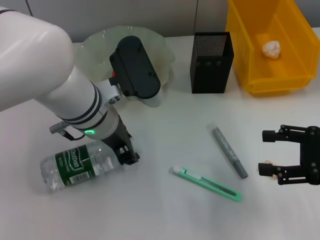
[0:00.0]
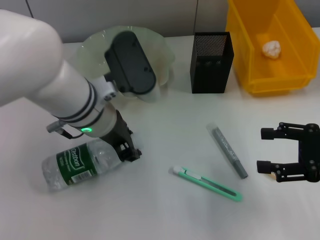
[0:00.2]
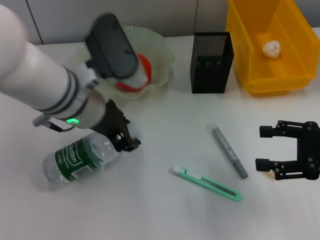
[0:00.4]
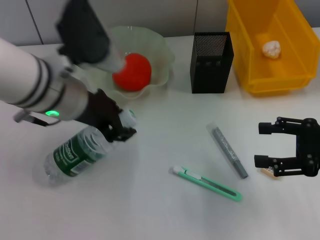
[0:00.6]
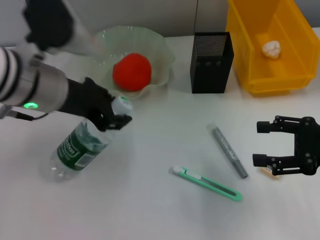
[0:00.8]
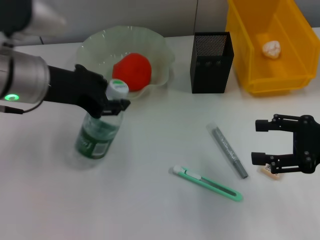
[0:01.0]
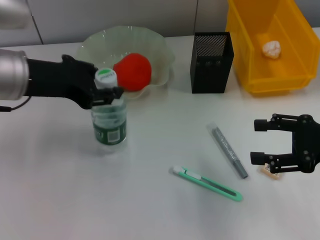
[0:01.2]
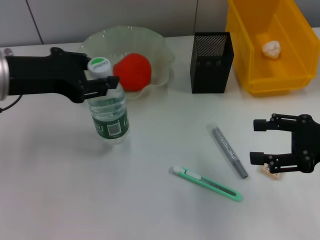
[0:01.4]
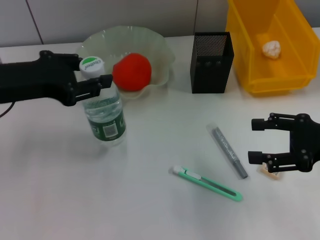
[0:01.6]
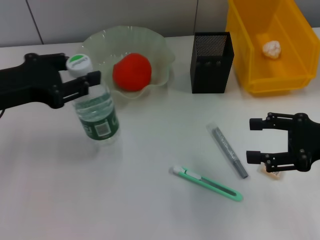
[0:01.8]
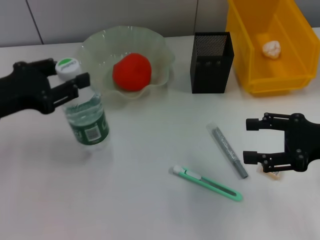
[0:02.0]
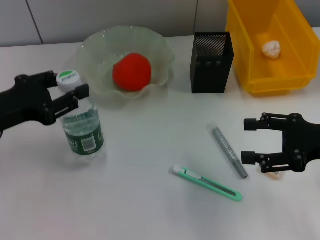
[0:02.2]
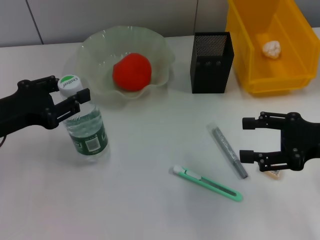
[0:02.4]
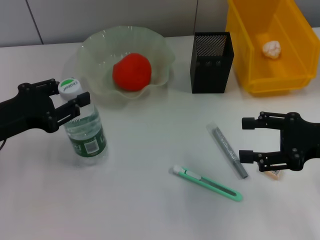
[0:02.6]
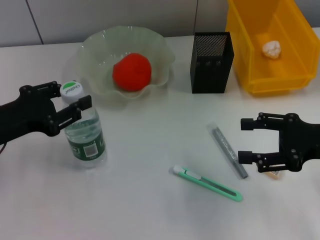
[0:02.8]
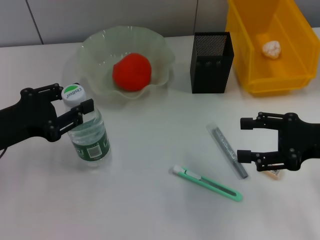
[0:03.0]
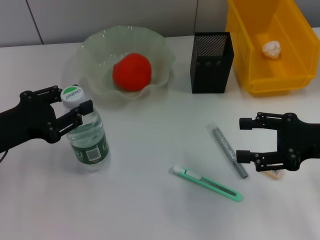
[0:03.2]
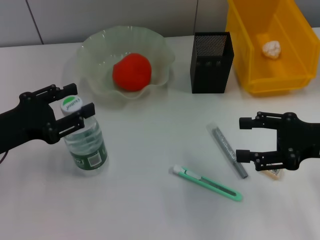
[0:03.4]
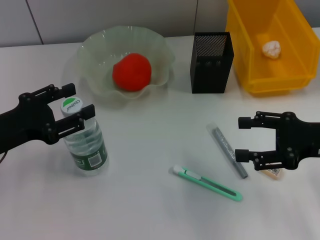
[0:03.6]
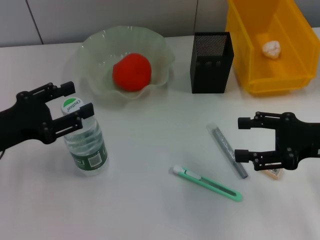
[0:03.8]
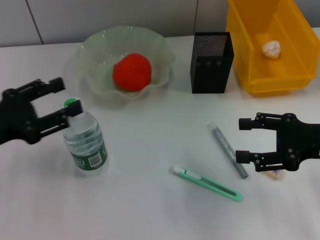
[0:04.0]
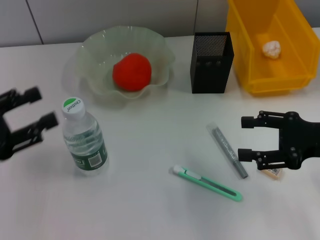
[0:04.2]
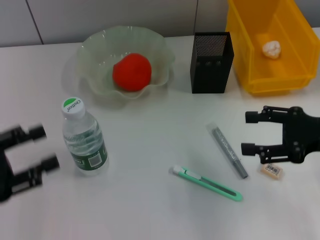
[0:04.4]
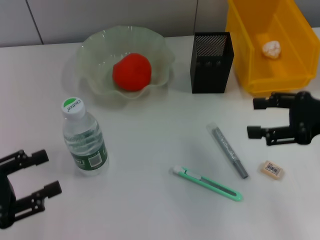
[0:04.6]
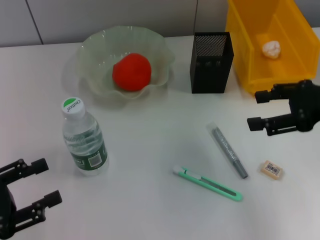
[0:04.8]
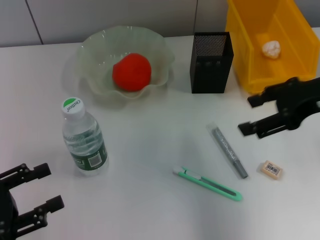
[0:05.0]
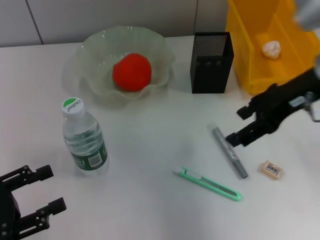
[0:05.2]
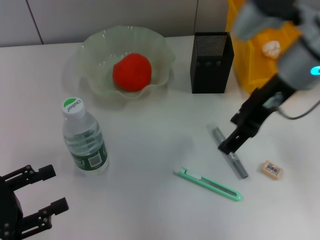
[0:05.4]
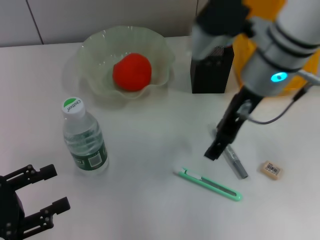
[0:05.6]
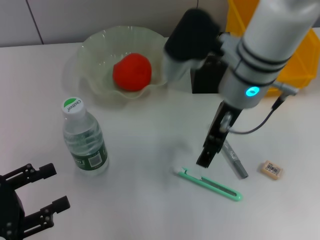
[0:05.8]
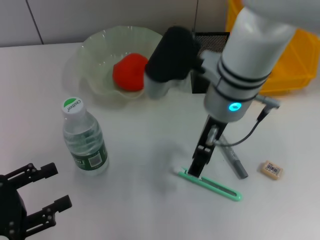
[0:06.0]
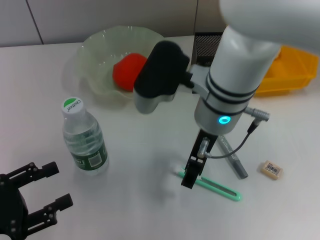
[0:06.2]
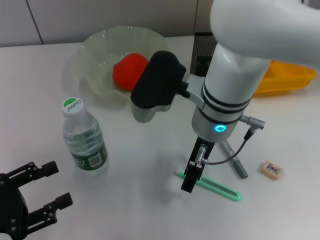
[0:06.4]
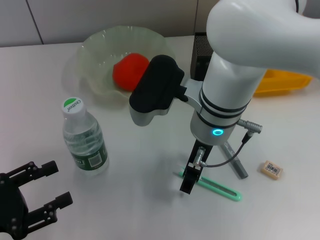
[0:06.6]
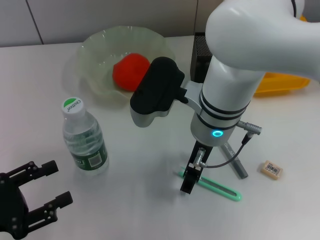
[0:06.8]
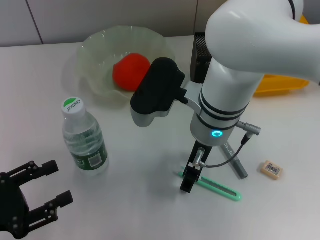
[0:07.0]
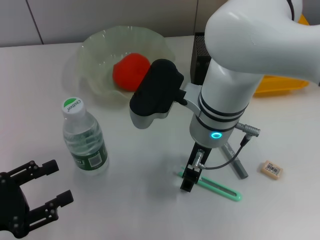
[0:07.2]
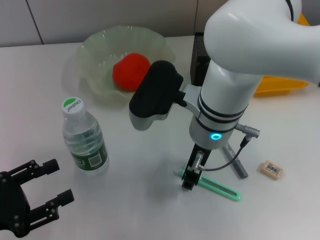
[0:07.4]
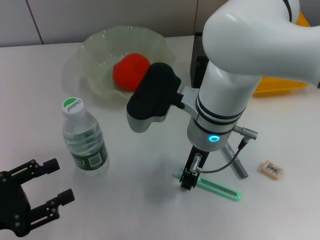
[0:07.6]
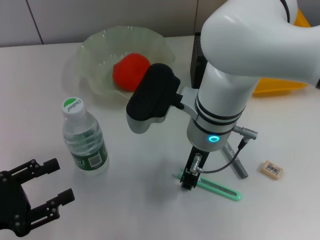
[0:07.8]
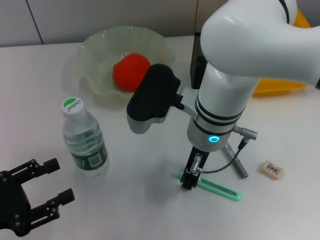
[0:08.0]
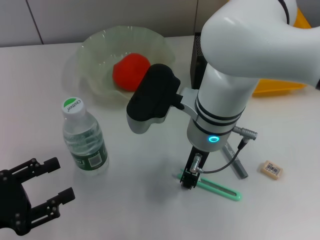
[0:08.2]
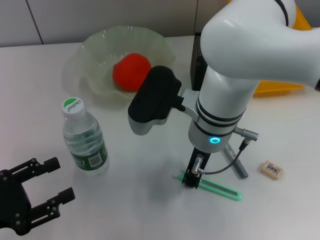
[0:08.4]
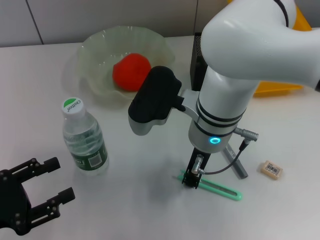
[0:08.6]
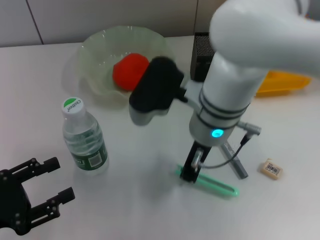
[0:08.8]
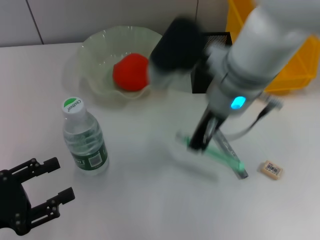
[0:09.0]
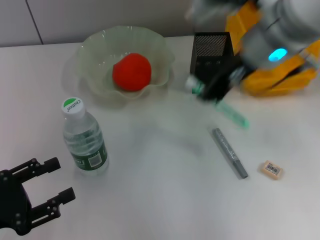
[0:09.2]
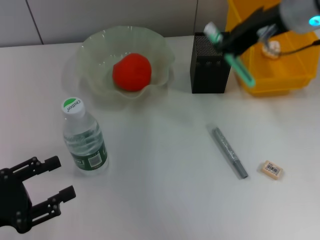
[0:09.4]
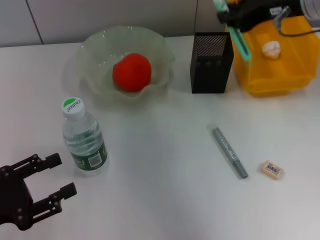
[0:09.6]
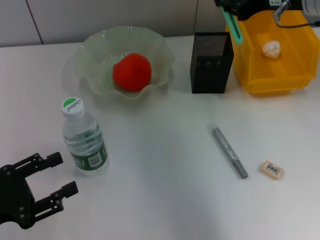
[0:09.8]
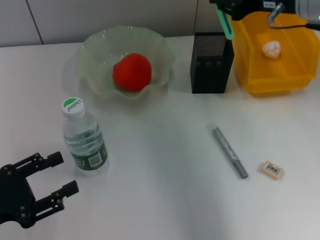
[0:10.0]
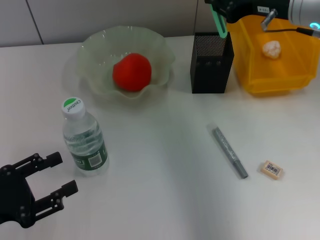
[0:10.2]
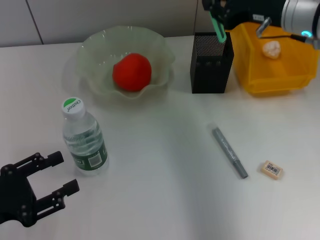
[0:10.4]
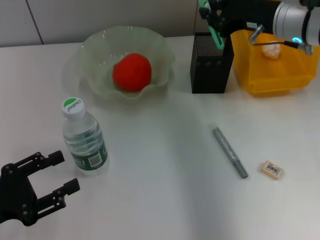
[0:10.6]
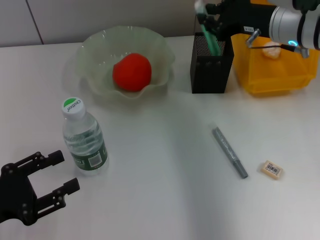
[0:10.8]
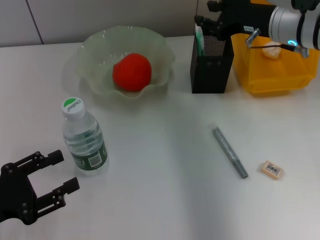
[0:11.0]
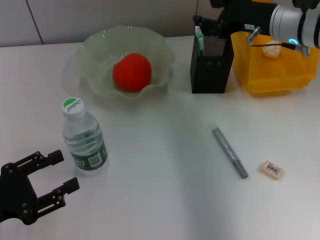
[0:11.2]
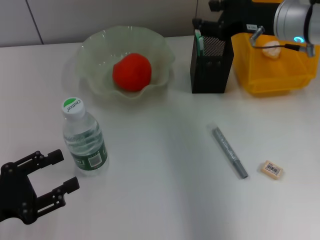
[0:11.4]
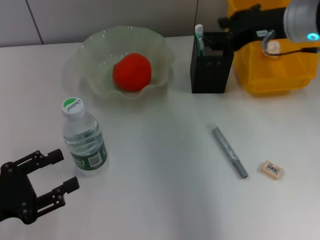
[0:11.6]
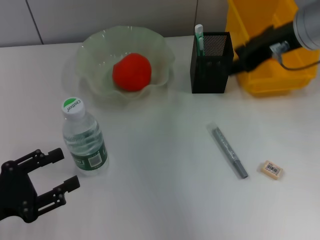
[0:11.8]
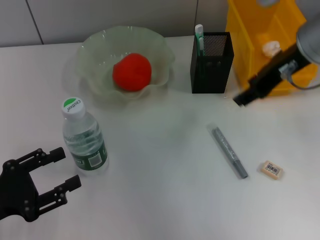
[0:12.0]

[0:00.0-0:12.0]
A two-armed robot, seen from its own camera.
Step, 0:00.0 to 0:03.4: Place the water bottle on the table with the left hand.
Step, 0:03.6 to 0:08.4: Grab the blue utility knife with the right hand.
Step, 0:08.6 to 0:11.0: Place the blue utility knife into the pen holder with the right hand.
0:00.0 to 0:01.6: The left gripper is displaced to the left and upward by some 15 cm.
0:01.6 to 0:03.0: The left gripper heads downward, covering roughly 10 cm.
0:03.0 to 0:04.4: The left gripper is displaced backward and to the left by approximately 10 cm, and opens its fingers.
0:04.4 to 0:06.0: The left gripper shifts by about 5 cm. Meanwhile the right gripper moves to the left, about 25 cm.
0:06.0 to 0:07.6: The right gripper closes up.
0:07.6 to 0:09.0: The right gripper is displaced upward by approximately 5 cm, and closes up.
0:09.0 to 0:10.4: The right gripper heads to the right and forward, covering some 15 cm.
0:10.4 to 0:12.0: The right gripper changes place by roughly 5 cm, and opens.

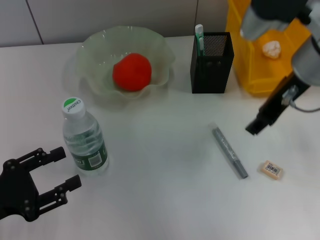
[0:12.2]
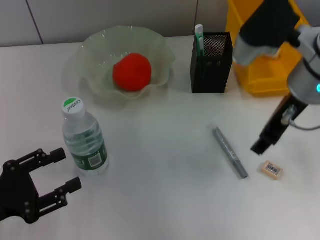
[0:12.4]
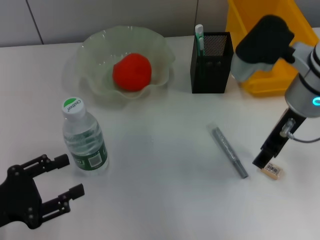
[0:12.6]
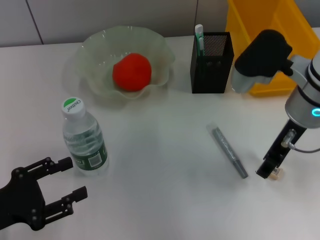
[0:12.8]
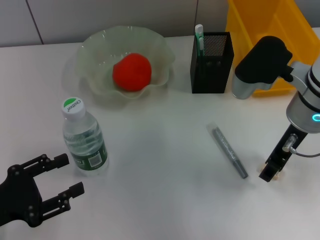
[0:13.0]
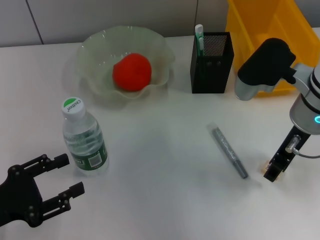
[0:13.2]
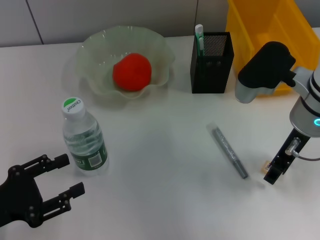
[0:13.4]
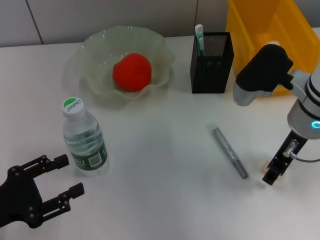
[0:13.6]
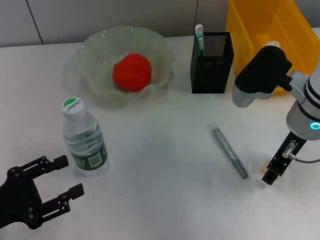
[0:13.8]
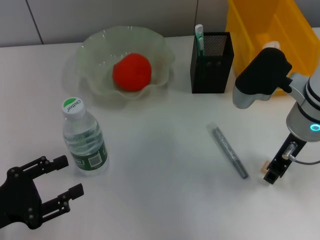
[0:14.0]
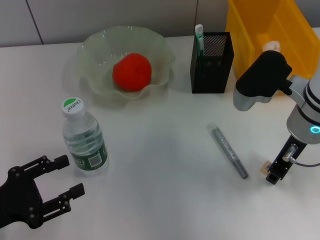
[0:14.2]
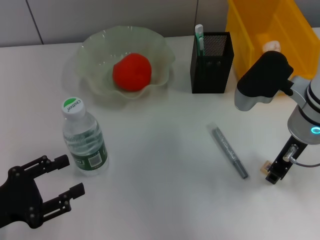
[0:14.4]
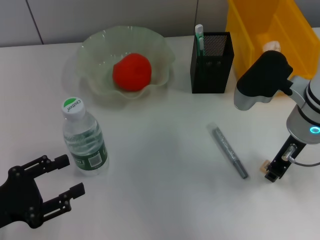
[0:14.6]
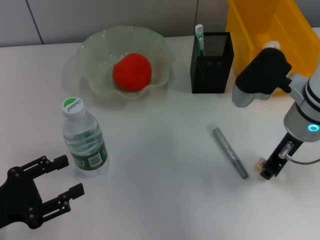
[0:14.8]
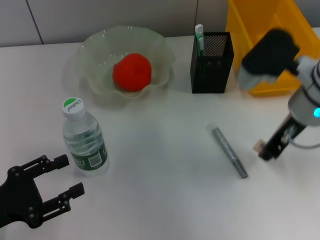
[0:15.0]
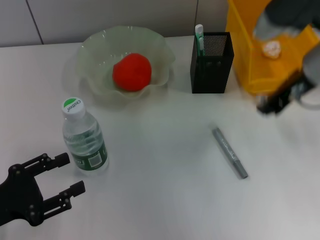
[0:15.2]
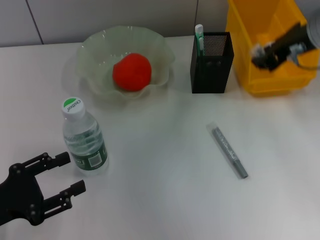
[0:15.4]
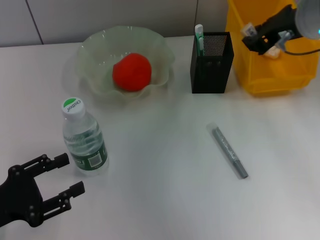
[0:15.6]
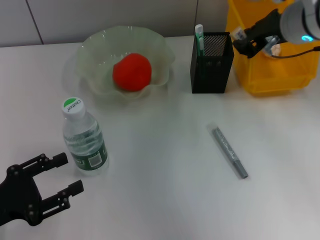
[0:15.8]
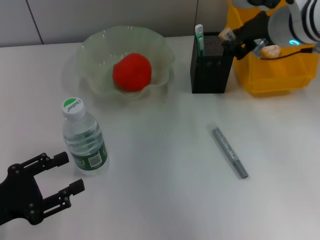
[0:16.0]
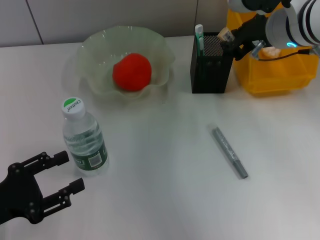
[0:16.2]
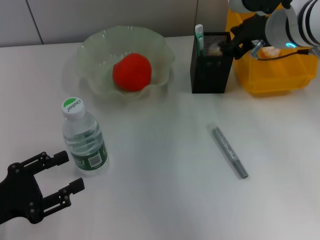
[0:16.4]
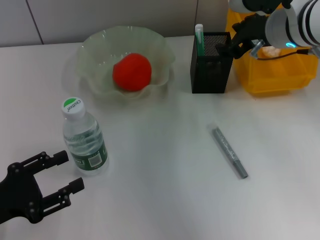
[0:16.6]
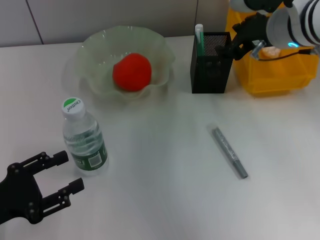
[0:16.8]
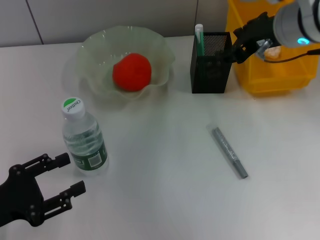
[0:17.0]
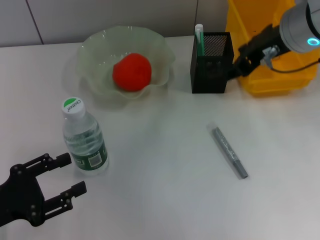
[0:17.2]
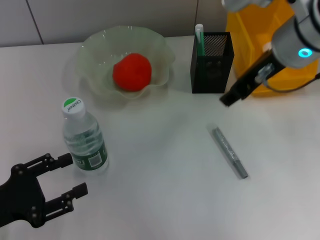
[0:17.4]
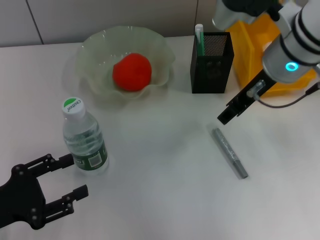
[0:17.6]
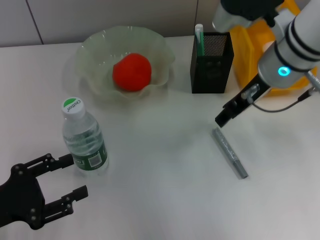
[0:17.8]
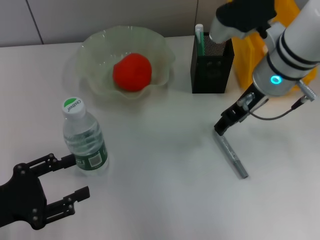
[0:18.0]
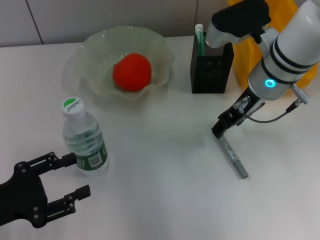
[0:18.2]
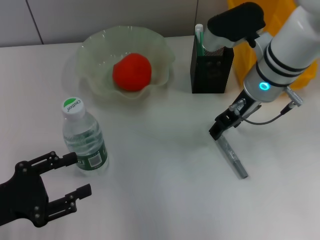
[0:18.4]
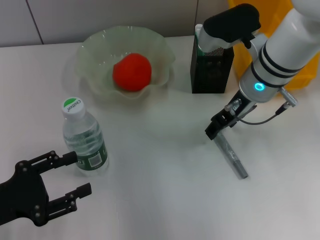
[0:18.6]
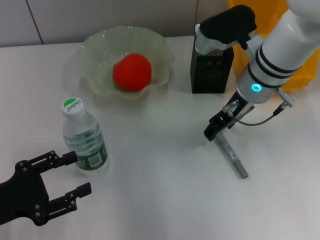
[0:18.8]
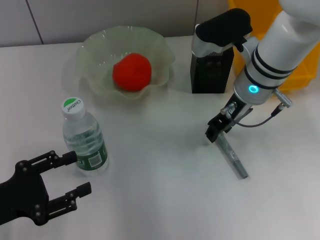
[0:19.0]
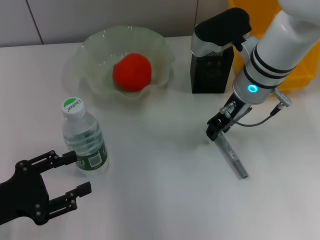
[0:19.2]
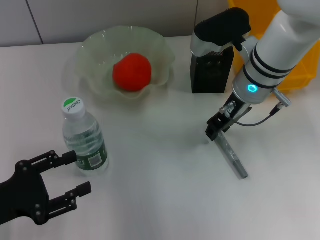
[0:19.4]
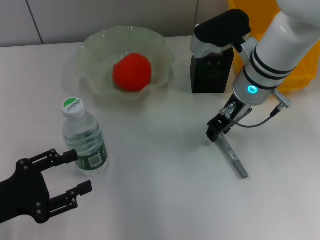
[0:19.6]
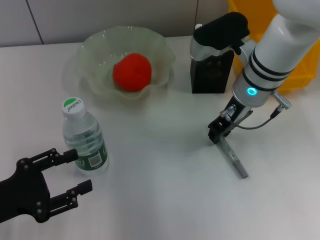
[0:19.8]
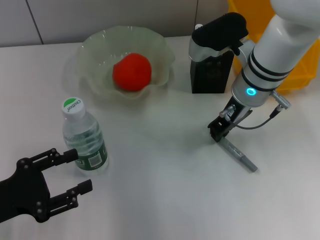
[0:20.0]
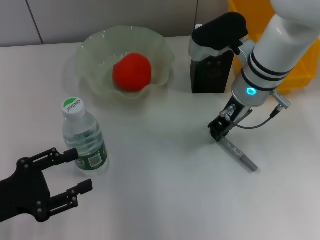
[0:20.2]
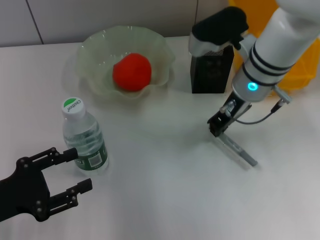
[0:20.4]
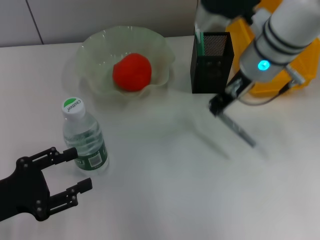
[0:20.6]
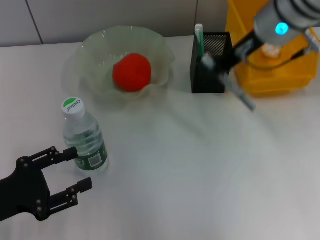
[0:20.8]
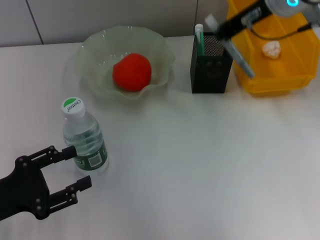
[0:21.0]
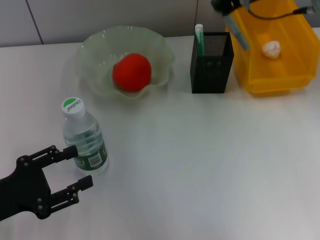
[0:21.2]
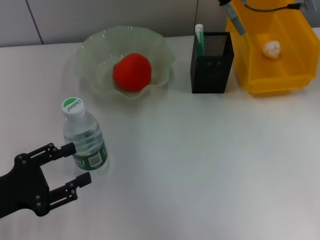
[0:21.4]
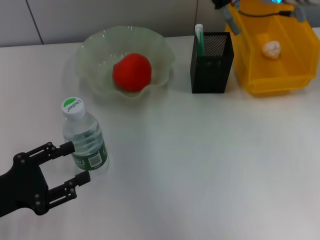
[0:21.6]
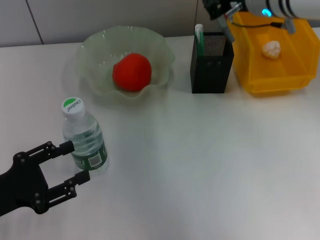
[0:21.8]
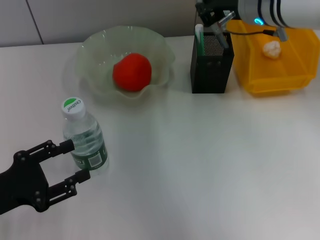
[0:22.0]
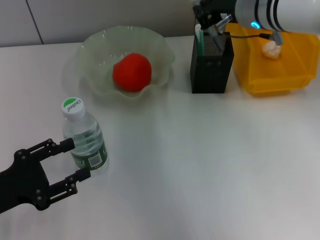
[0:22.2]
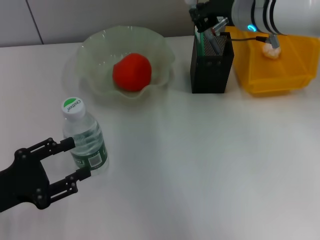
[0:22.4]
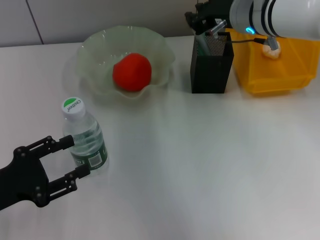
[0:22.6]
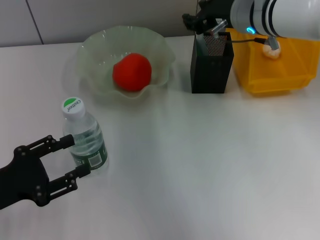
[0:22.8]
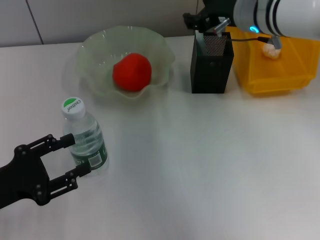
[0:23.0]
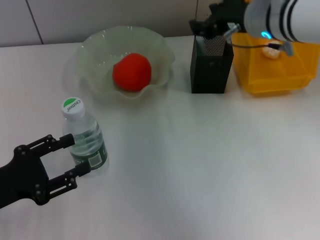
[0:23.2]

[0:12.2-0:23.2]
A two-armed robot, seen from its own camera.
Step, 0:12.2 to 0:14.4: Grab the eraser with the right hand.
Step, 0:14.6 to 0:16.4: Put the eraser into the pen holder with the right hand.
Step, 0:16.6 to 0:20.0: Grab the gray glue with the right hand.
Step, 0:20.2 to 0:22.6: Place the gray glue into the pen holder with the right hand.
0:12.2 to 0:13.8: The right gripper heads downward, covering about 5 cm.
0:13.8 to 0:15.4: The right gripper travels upward by approximately 10 cm, and closes its fingers.
0:15.4 to 0:17.0: The right gripper opens its fingers.
0:17.0 to 0:18.4: The right gripper heads downward, covering about 10 cm.
0:18.4 to 0:20.0: The right gripper closes up.
0:20.0 to 0:21.6: The right gripper moves upward, approximately 10 cm.
0:21.6 to 0:23.2: The right gripper opens its fingers.
